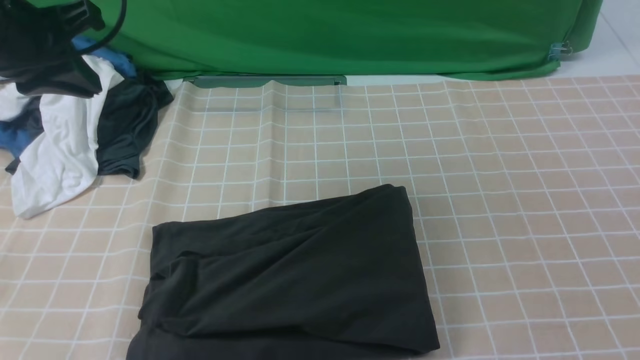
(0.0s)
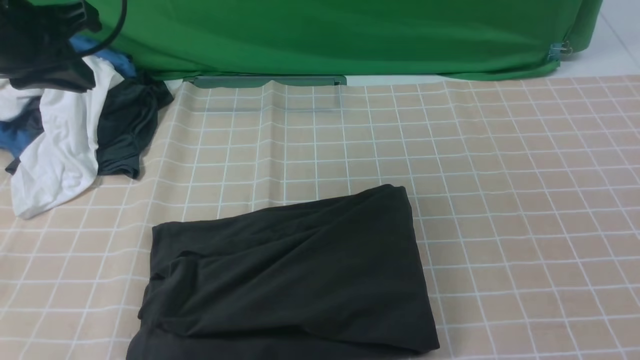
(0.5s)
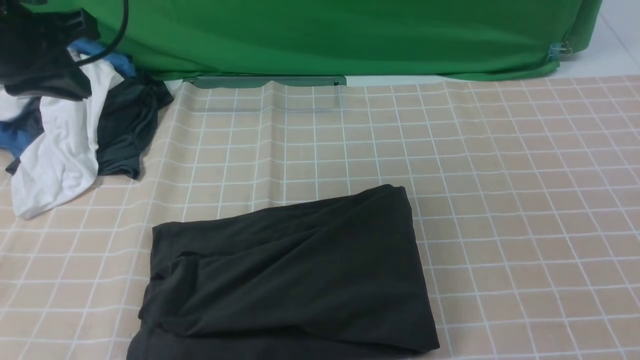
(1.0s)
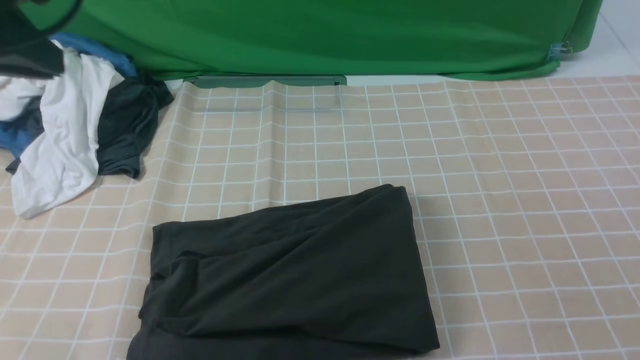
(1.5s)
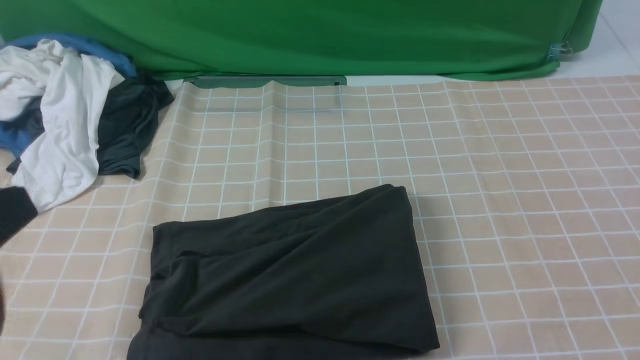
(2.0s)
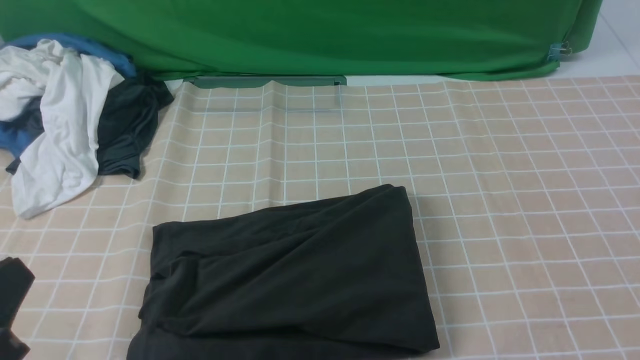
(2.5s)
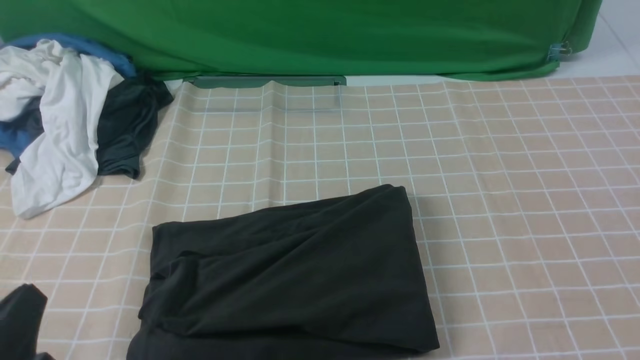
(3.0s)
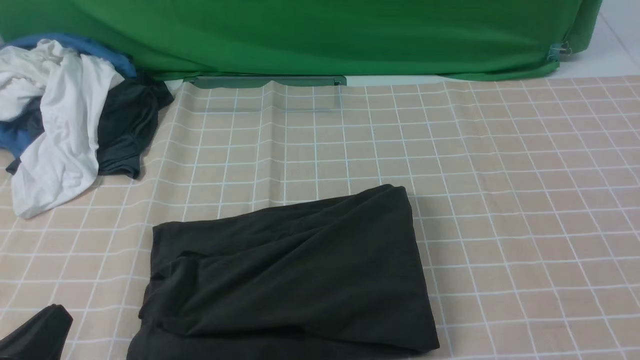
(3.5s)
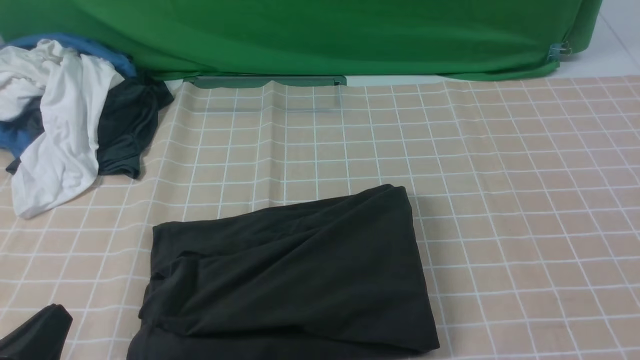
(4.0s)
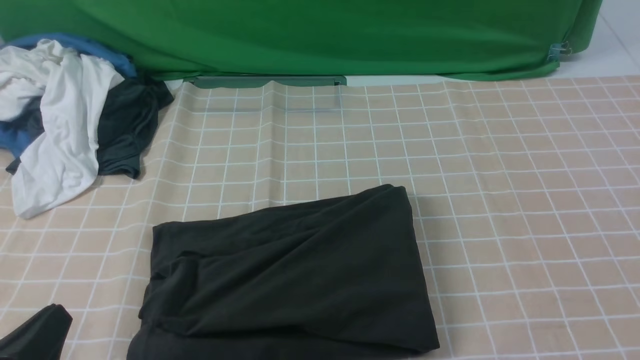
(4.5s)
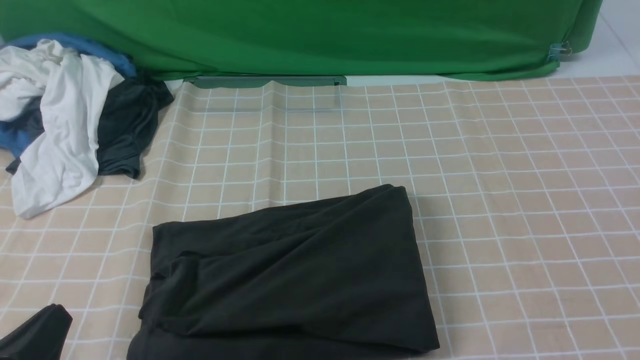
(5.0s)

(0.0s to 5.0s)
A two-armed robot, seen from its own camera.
0.0s - 2.5s: The left gripper heads backward, covering some 30 cm.
2.5s - 5.0s: The left gripper goes some 10 cm downward.
